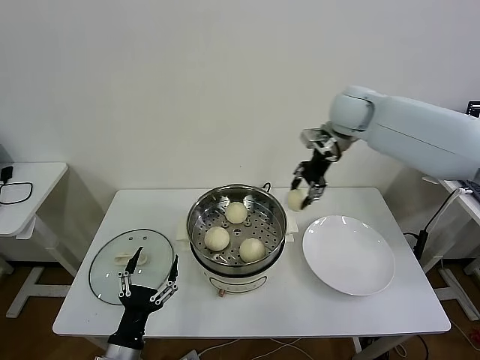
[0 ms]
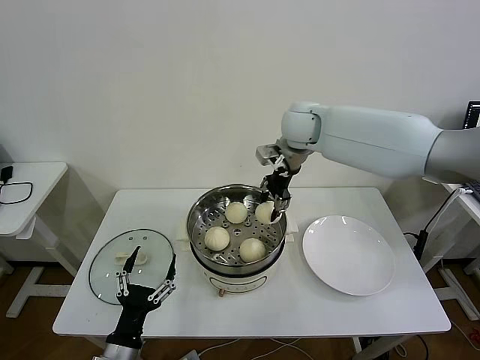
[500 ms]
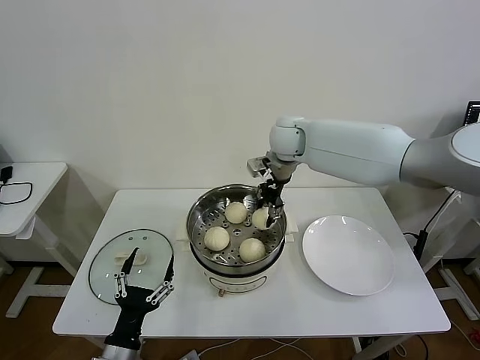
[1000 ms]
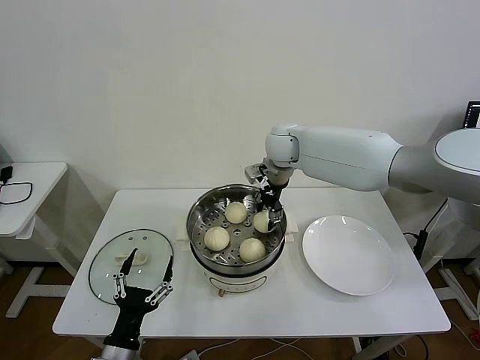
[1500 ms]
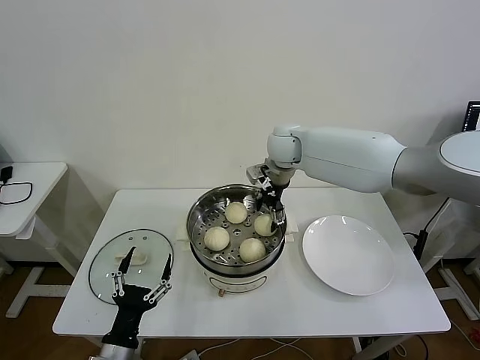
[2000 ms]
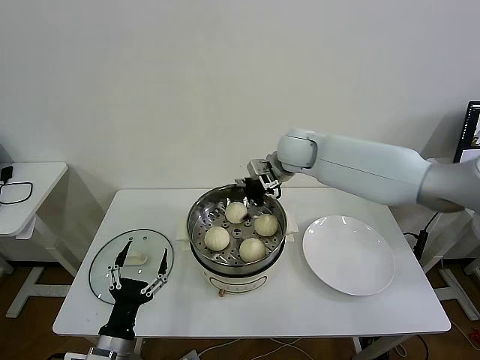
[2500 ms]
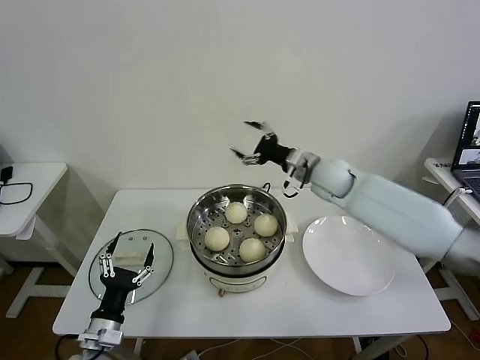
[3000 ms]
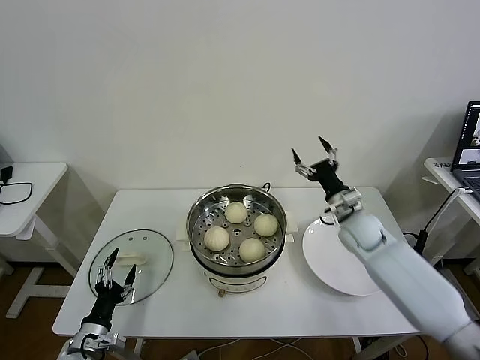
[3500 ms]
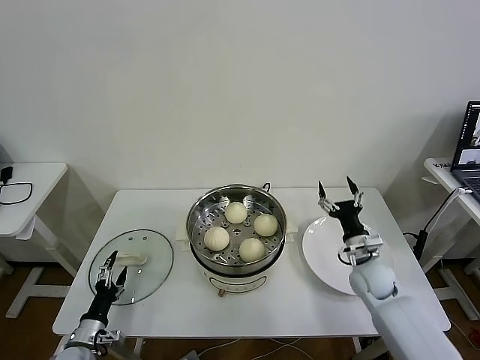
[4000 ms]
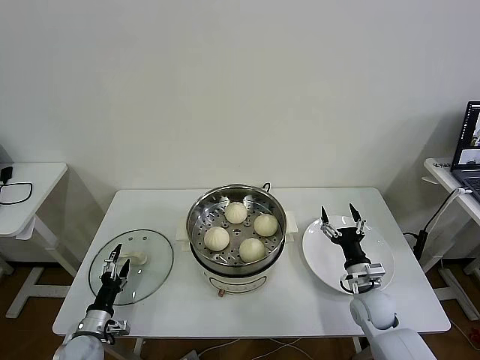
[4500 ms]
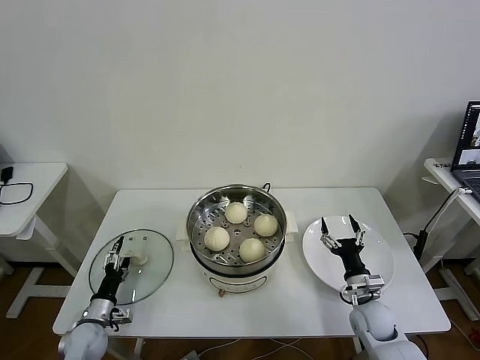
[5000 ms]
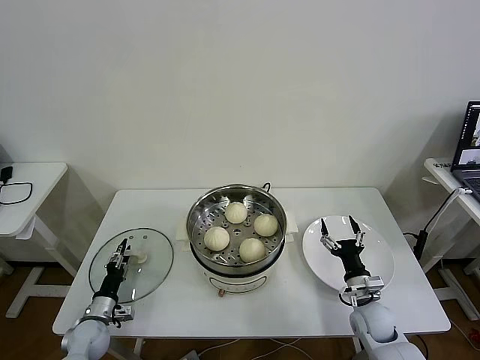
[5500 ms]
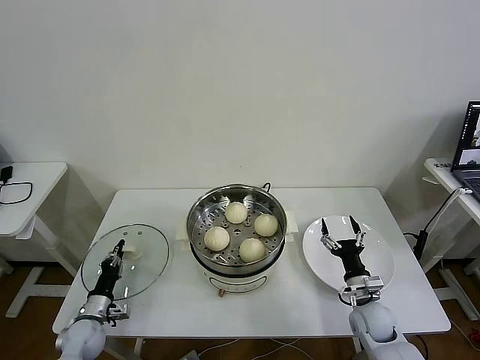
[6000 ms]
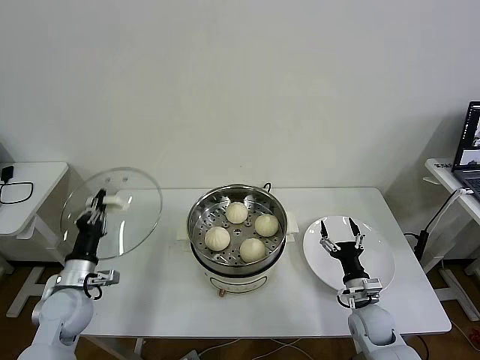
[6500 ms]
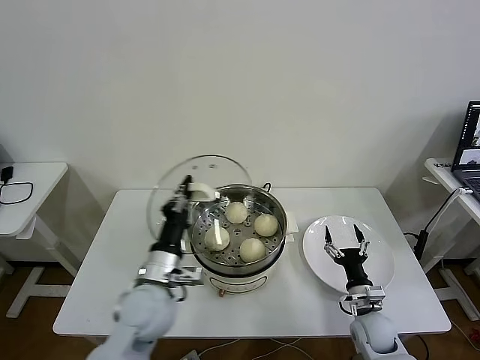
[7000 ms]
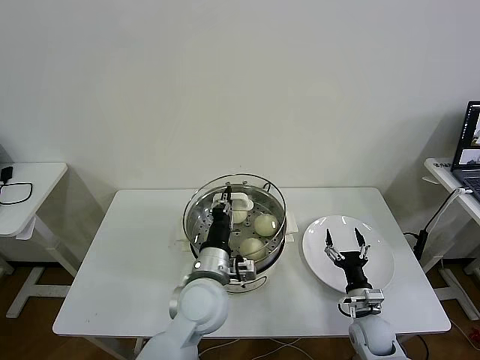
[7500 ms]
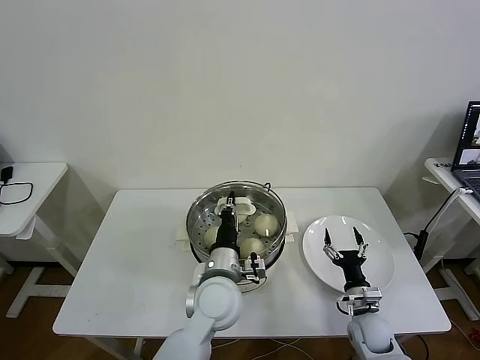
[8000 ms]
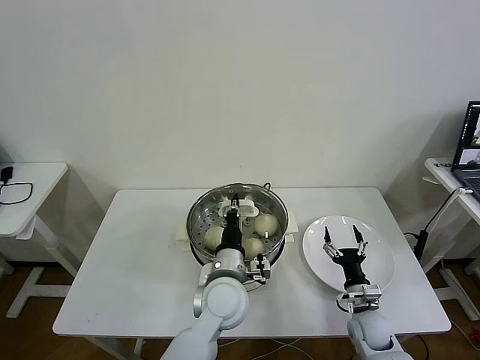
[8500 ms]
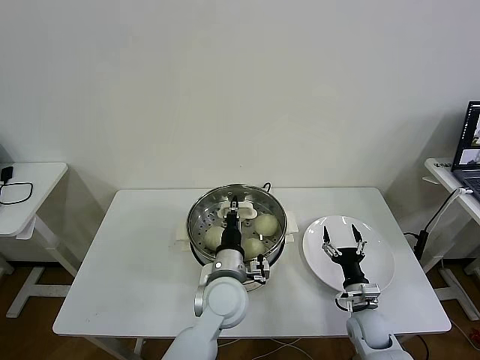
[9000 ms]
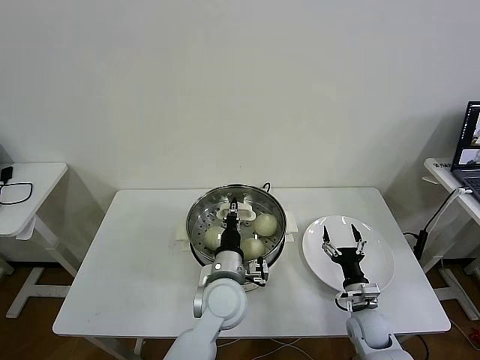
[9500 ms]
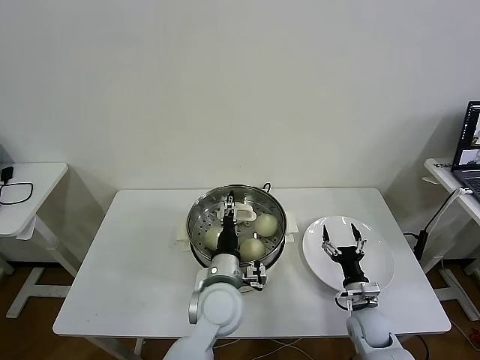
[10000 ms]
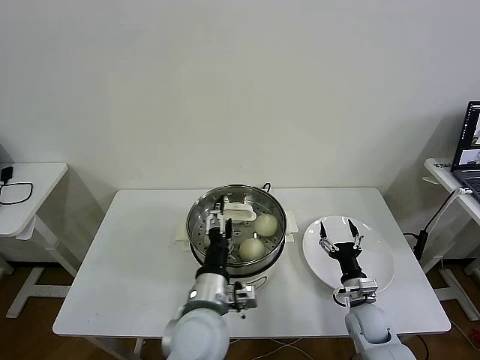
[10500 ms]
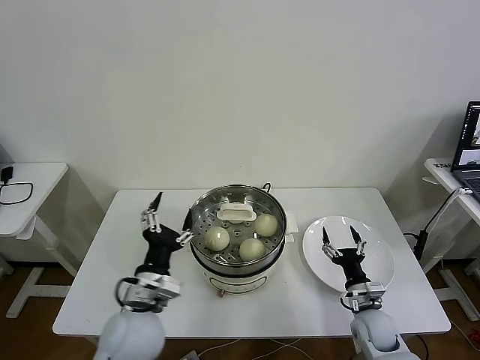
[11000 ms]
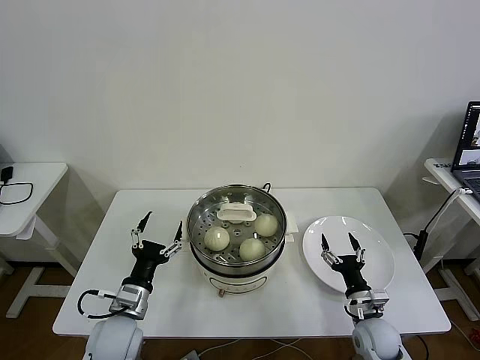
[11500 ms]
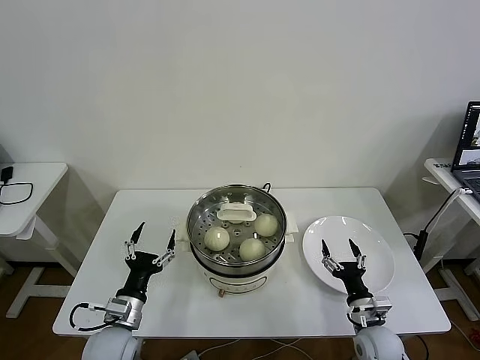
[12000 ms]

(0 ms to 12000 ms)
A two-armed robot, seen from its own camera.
Task of the whole recording: take steamed baozi put them in steamer then cover it.
Step, 0 ms - 2000 ms: Place the baozi on the steamer with right gripper.
Step, 2500 ms - 6000 ms: Grasp the pot lid with left gripper.
Step, 6500 ms - 10000 ms: Place the pot lid on the steamer with left gripper.
0 ms - 2000 ms: The right gripper travels to the left and downward by about 15 cm, and opens its fingers.
2000 ms - 4000 ms: The left gripper moves to the left, downward and forward, about 20 cm; the right gripper goes some 40 cm downward, to the right and backward.
4000 ms - 6000 ms: The left gripper is displaced forward by about 5 cm, and closes up, while the right gripper travels backward and downward by about 10 cm.
6000 ms - 8000 ms: The left gripper is displaced to the right and upward by about 40 cm.
8000 ms - 10000 ms: The left gripper opens its fingers.
10000 ms - 12000 ms: The left gripper goes approximately 25 cm to the left, and opens its fingers.

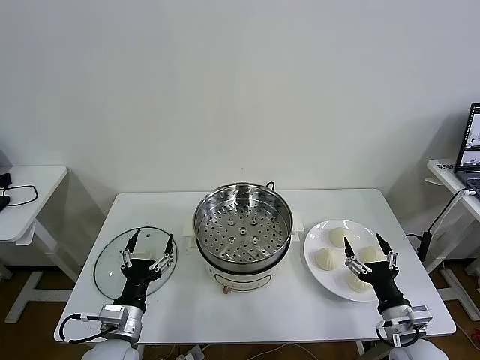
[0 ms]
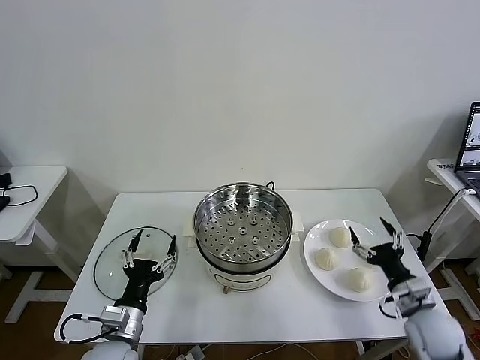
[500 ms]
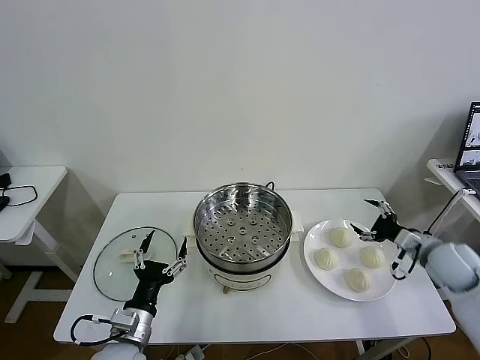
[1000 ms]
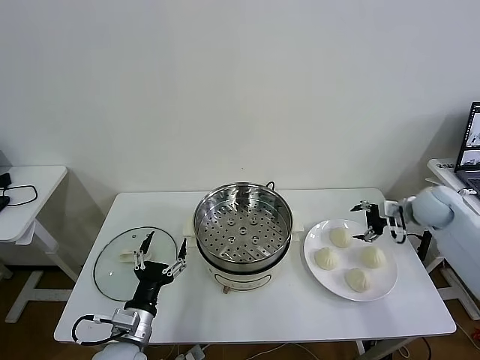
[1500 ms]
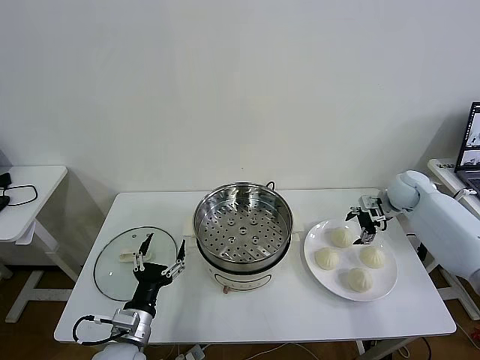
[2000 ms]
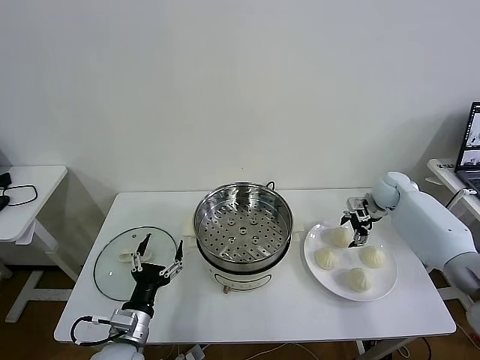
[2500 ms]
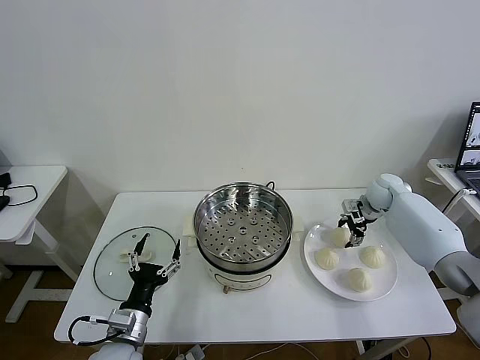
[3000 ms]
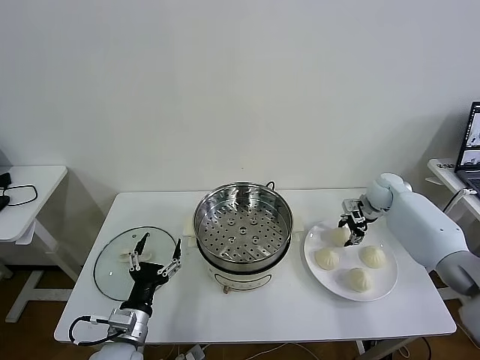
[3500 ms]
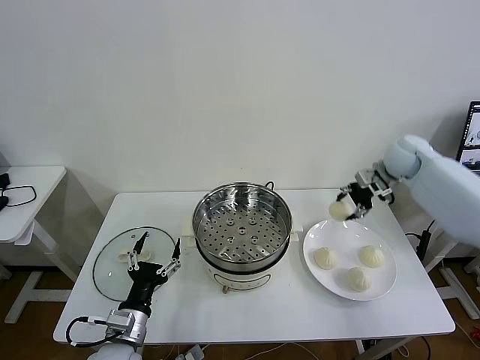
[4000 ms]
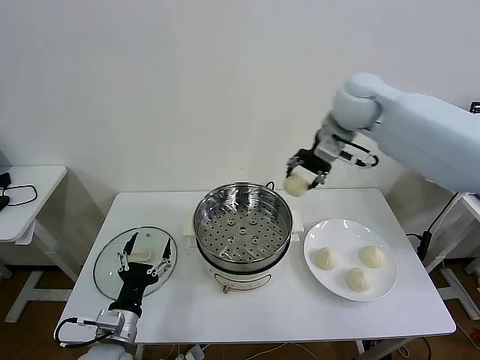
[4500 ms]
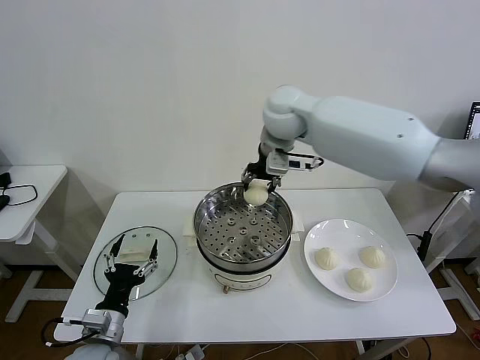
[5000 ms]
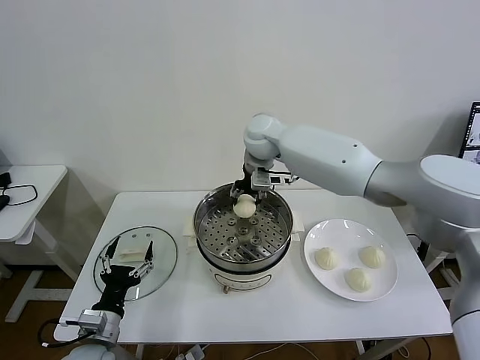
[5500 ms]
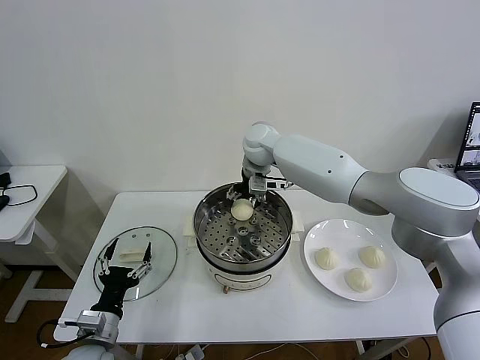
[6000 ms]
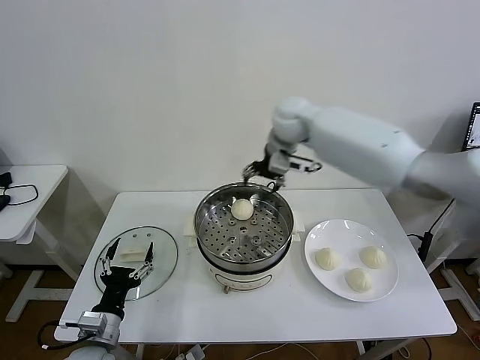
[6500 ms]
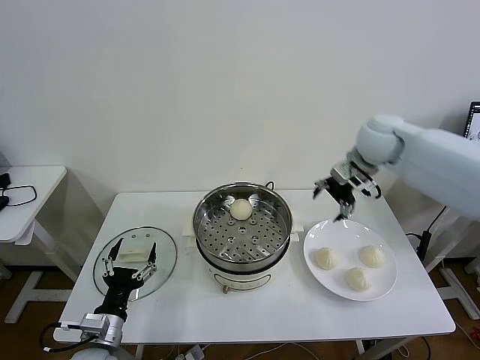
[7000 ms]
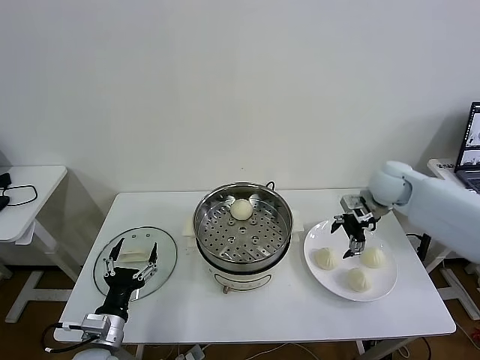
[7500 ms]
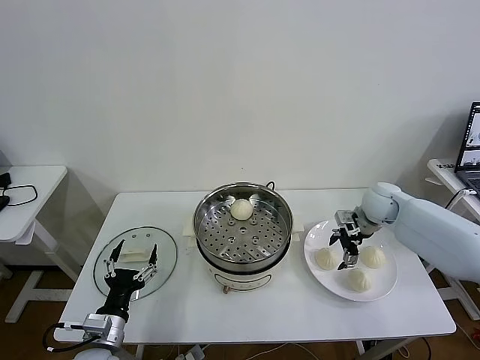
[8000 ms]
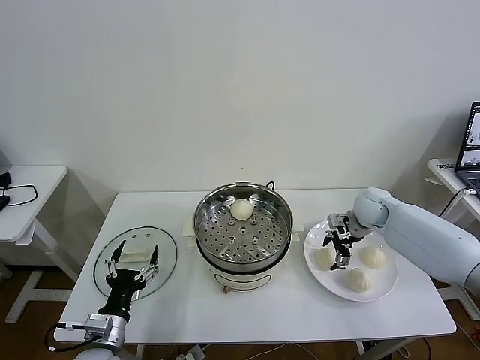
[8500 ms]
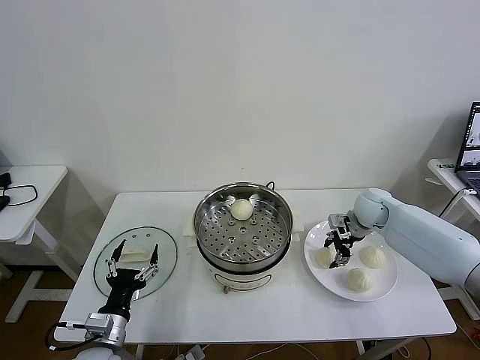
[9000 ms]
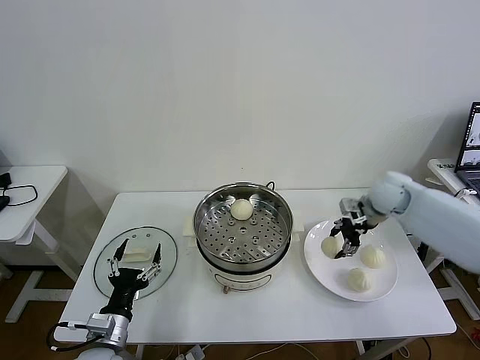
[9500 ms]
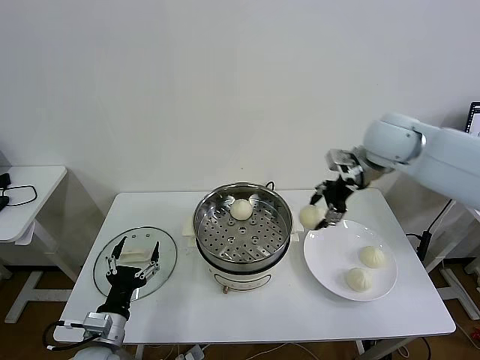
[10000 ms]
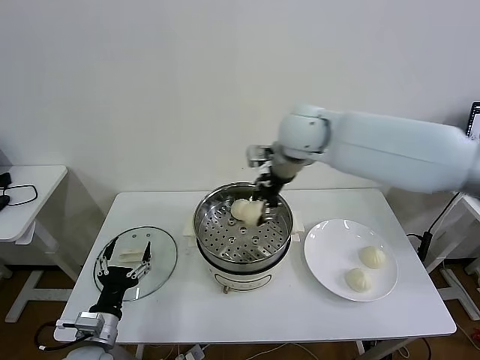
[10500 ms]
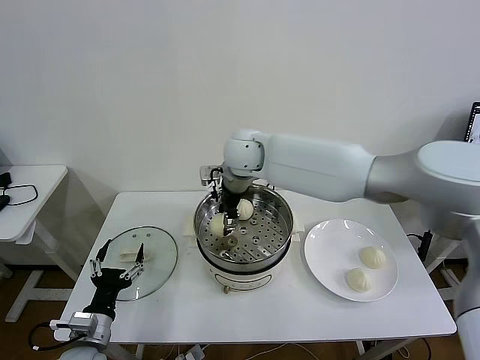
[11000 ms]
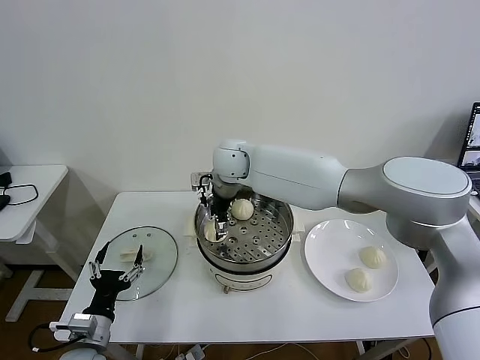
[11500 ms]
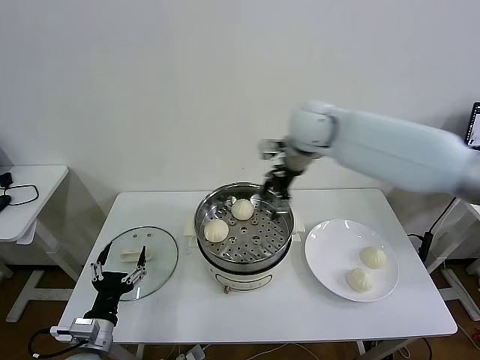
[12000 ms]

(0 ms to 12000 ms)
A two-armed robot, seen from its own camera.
Task of the whole recording: take steamed baozi put them in steamer then cover it.
Step, 0 ms - 3000 ms: Grasp the baozi in the plate with right gripper.
Step, 3500 ms - 6000 ms: Place the baozi on the steamer with right gripper.
Step, 6500 ms - 8500 ms: Grasp the baozi in the plate with right gripper.
Step, 9000 ms - 11000 ms: Place the baozi on the steamer with right gripper.
2000 ms - 4000 ms: The right gripper travels upward and to the left by about 15 cm, and closes.
4000 ms - 6000 ms: The left gripper goes some 5 cm to the left, while the right gripper moves to the left, roughly 30 cm, and opens.
6000 ms - 8000 ms: The right gripper heads to the right and downward, covering about 35 cm.
8000 ms - 10000 ms: The right gripper shifts some 25 cm upward and to the left, and closes up.
10000 ms - 12000 ms: The right gripper reaches some 25 cm to the left, then returns, and opens up.

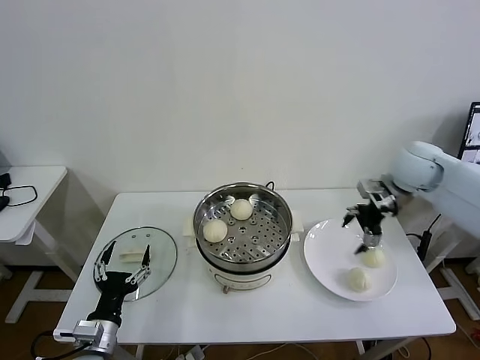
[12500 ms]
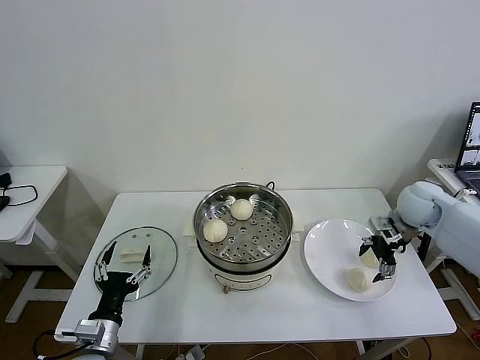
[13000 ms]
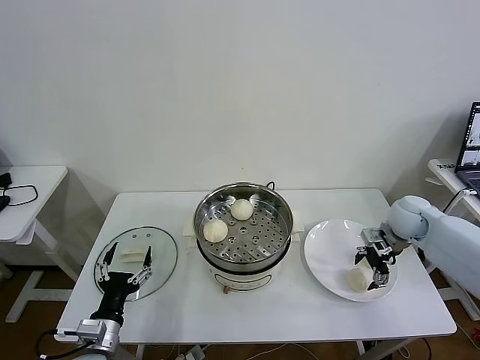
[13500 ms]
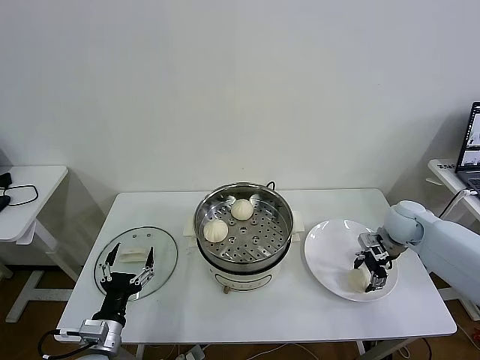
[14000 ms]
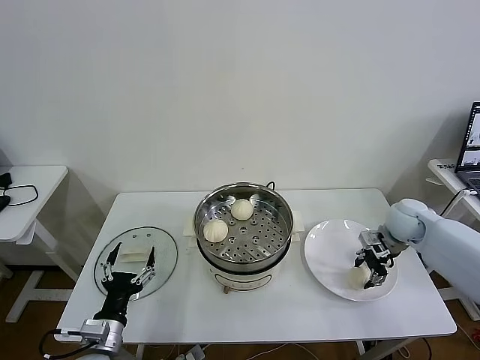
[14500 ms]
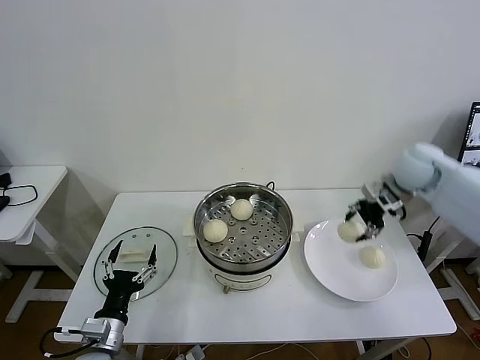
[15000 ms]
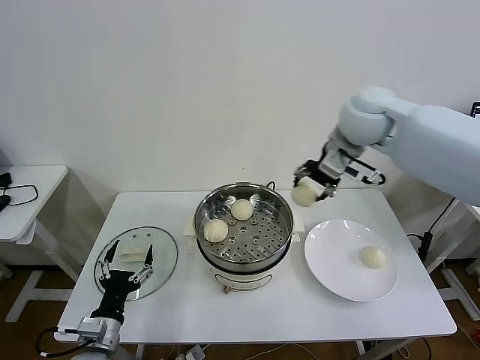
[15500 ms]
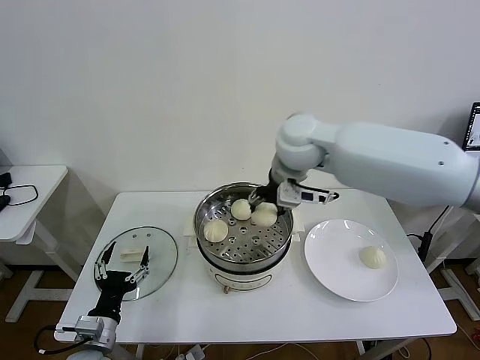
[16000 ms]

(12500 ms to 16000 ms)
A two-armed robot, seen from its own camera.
Task of the whole recording: take steamed baozi put them in steamer then cover it.
Step, 12500 ms - 14000 ms: Grasp the baozi in the plate with right gripper.
12500 ms - 14500 ms: The right gripper goes about 15 cm downward, and closes its fingers.
14500 ms - 16000 ms: The right gripper goes roughly 35 cm to the left and upward.
